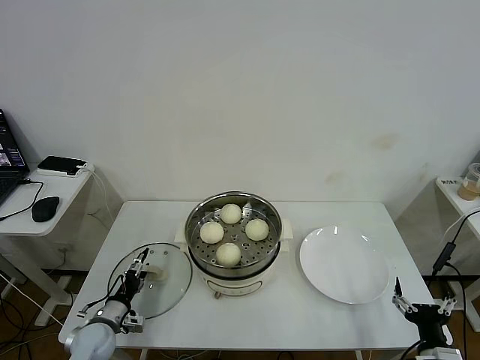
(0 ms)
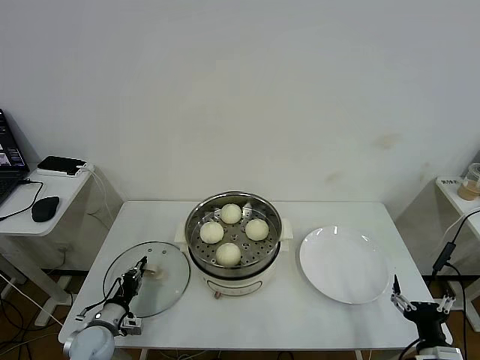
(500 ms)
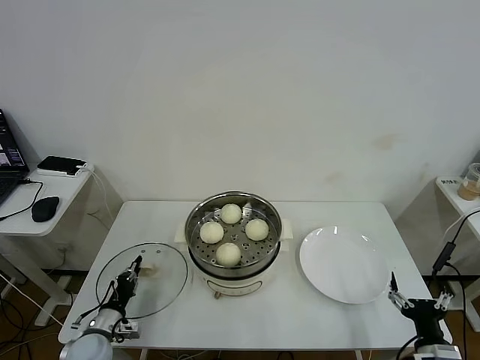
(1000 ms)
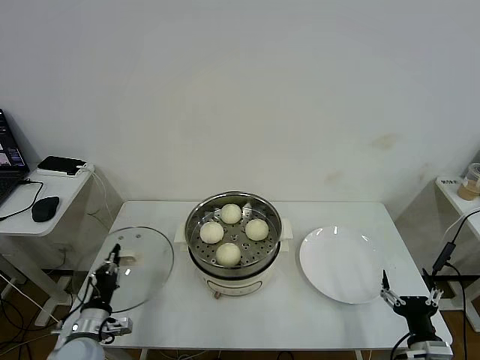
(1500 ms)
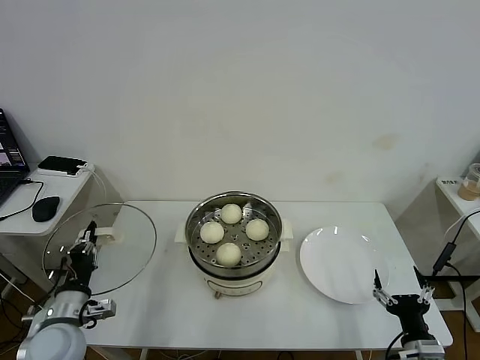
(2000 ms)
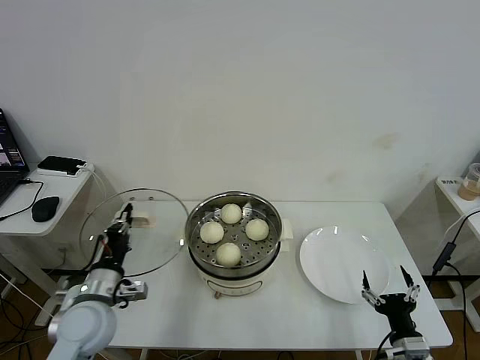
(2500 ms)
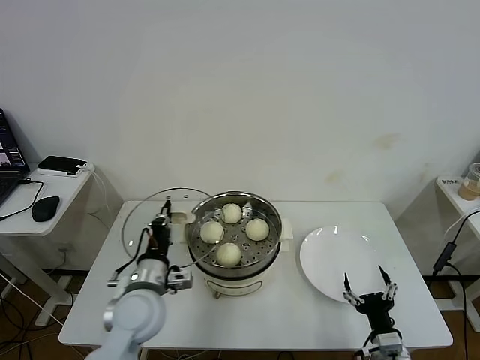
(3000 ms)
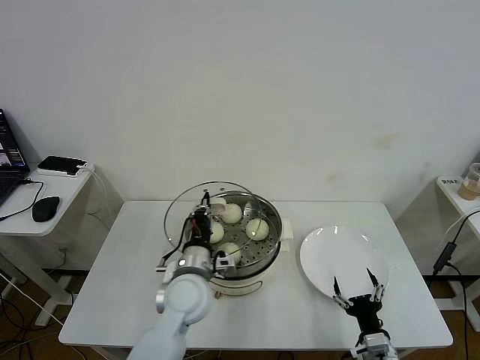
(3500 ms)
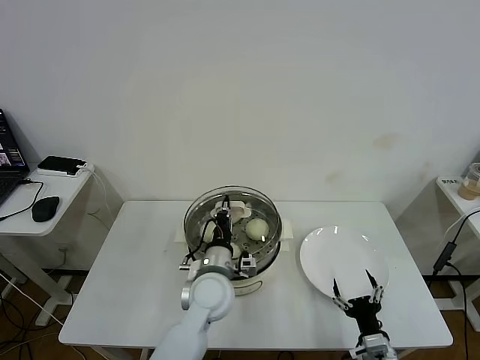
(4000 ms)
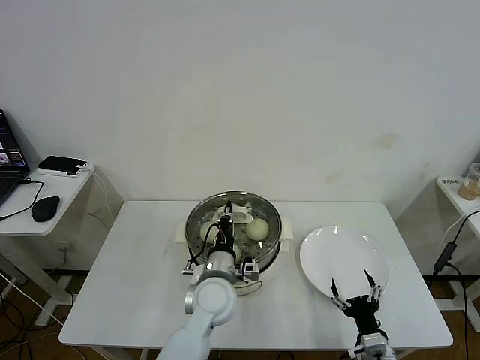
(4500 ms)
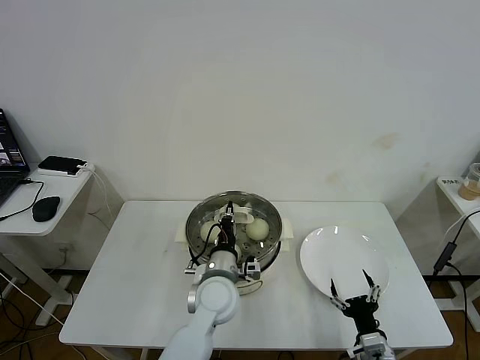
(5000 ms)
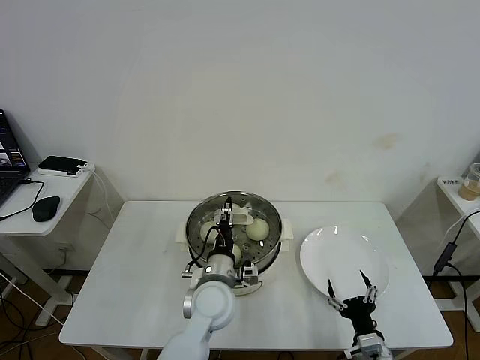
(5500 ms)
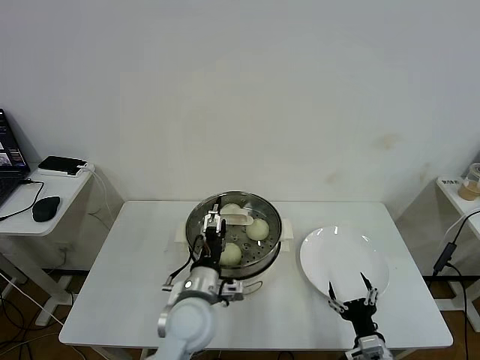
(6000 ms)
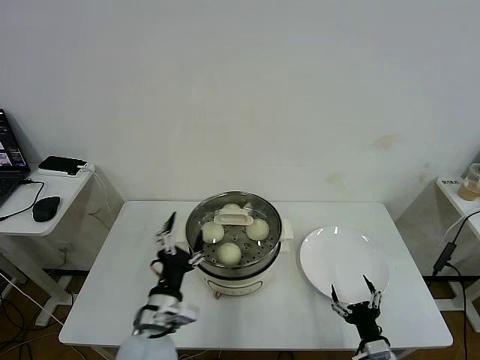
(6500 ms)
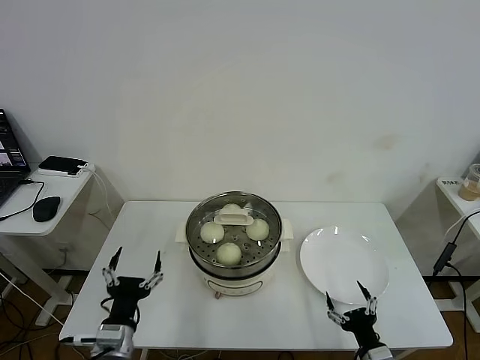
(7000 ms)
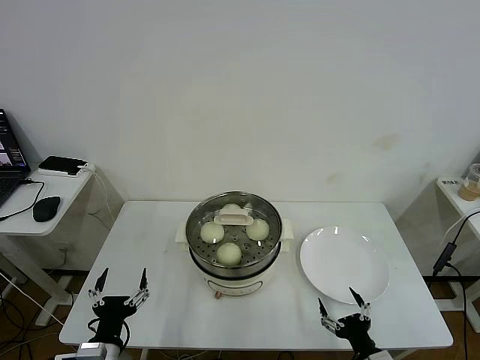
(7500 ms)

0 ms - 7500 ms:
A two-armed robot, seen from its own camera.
Task of the whole recording: take steamed baozi put them in steamer then cover it.
Step, 1000 ms - 5500 ms: Place the pot lid on the steamer with left gripper.
0 ms - 2000 ms: The left gripper travels upward by approximately 15 cm, and closes its fingers.
2000 ms - 4000 ms: The left gripper goes approximately 30 cm to the right, while the right gripper travels to the left by approximately 5 cm.
4000 ms - 5500 ms: The left gripper opens up.
5500 ms - 7500 ms: The left gripper heads to the left and backward, covering about 25 cm, and opens up.
